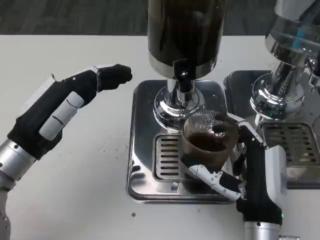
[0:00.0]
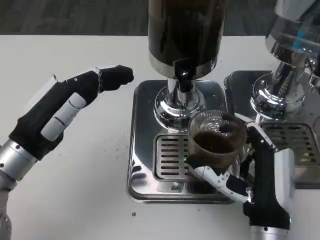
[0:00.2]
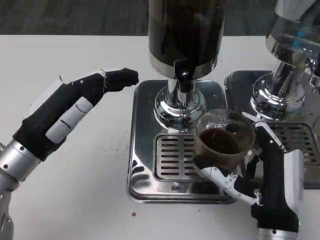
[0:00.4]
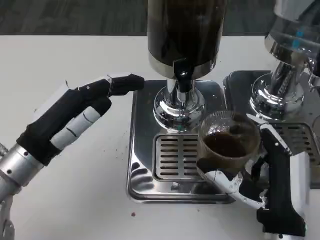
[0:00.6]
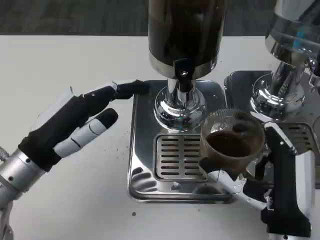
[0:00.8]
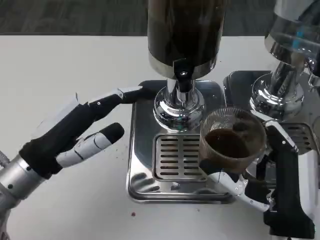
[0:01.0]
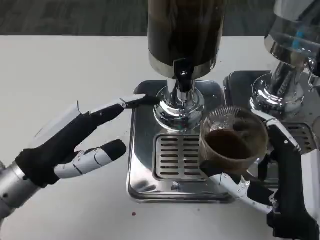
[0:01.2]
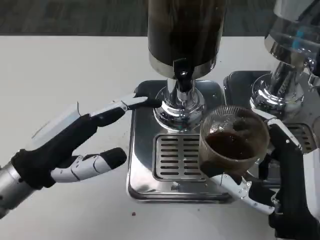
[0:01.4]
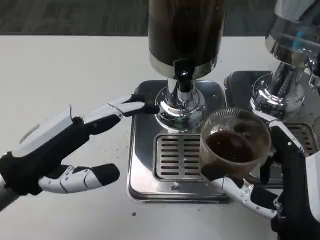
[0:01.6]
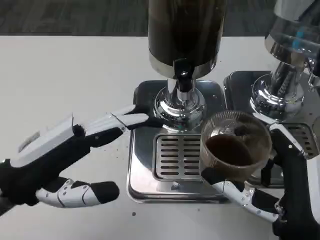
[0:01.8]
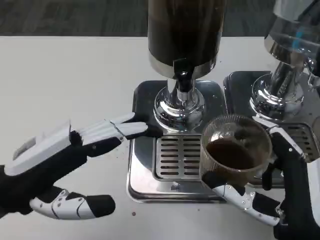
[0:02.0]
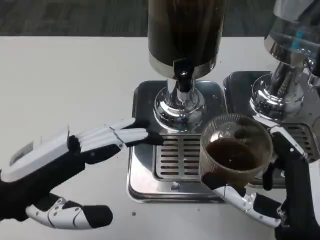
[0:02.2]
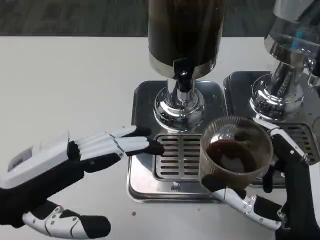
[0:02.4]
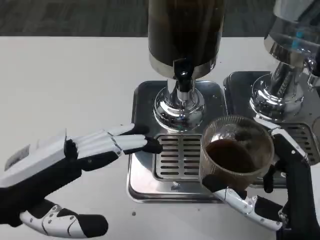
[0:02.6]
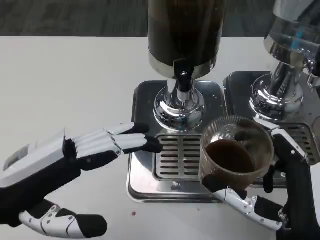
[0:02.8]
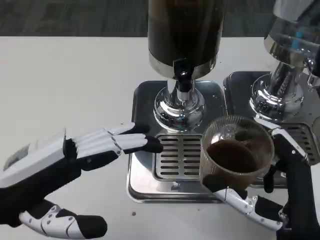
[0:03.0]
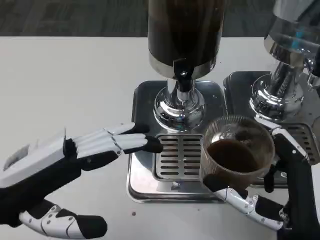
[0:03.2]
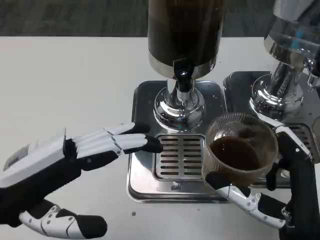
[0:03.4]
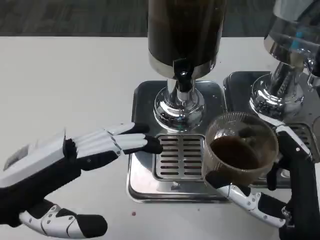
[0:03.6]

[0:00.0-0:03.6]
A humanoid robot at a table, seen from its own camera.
Task of the whole recording: Grasp the cup under the faucet to collect the drink, then remove the cup.
0:00.0 to 0:01.8: The left hand goes some 5 cm backward, while the right hand ends up some 5 cm from where it was.
0:01.8 to 0:03.6: There are only small adjustments of the hands.

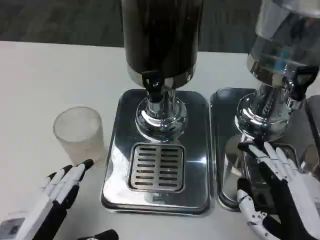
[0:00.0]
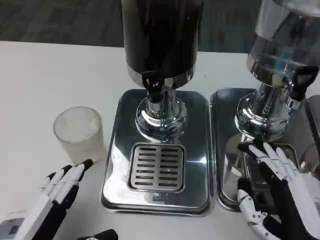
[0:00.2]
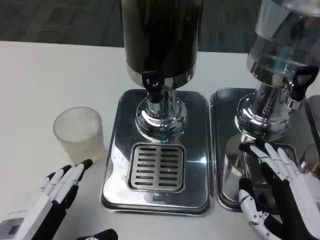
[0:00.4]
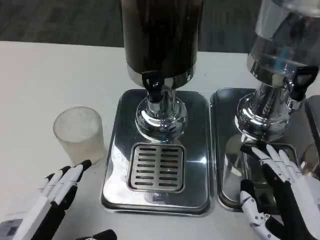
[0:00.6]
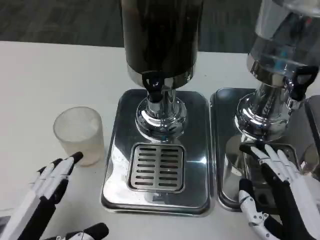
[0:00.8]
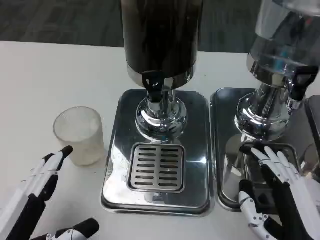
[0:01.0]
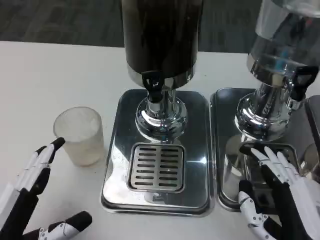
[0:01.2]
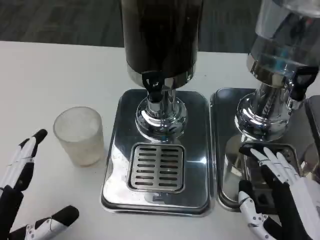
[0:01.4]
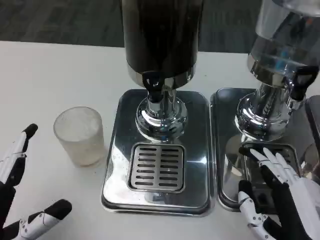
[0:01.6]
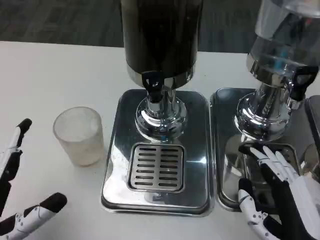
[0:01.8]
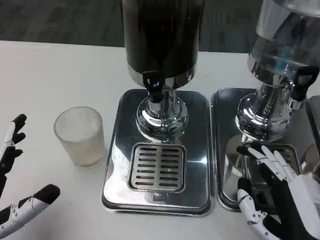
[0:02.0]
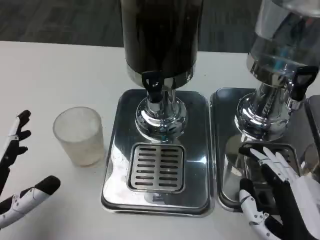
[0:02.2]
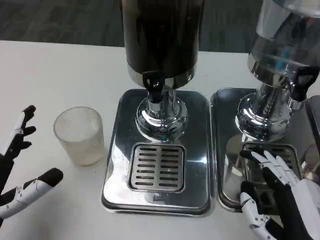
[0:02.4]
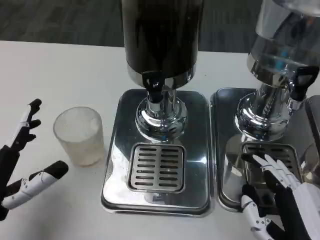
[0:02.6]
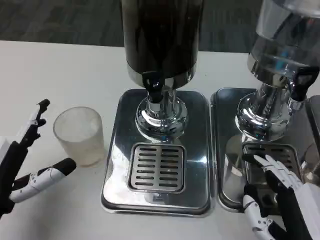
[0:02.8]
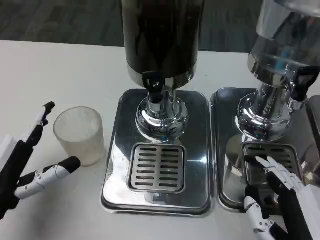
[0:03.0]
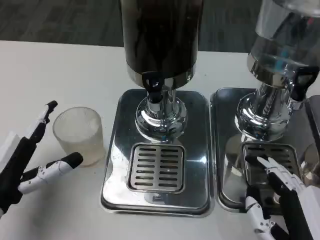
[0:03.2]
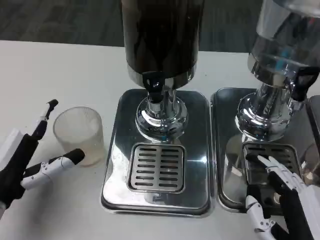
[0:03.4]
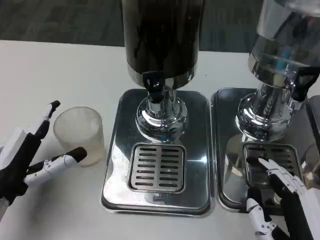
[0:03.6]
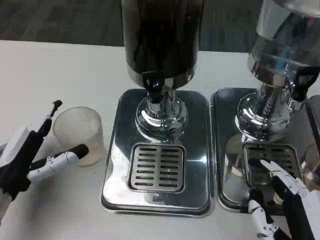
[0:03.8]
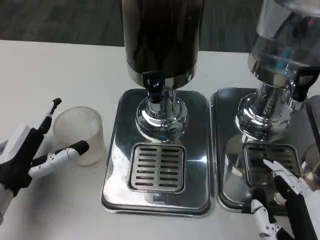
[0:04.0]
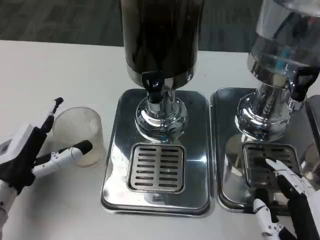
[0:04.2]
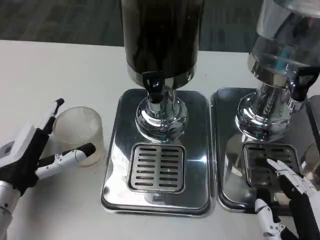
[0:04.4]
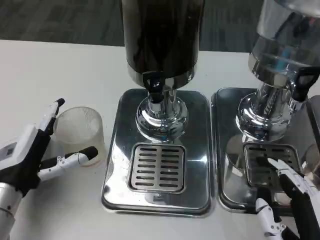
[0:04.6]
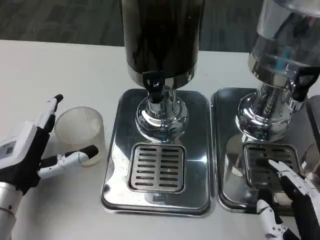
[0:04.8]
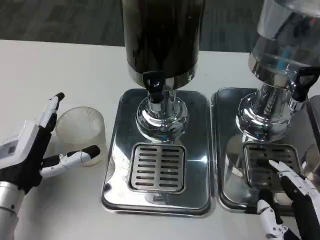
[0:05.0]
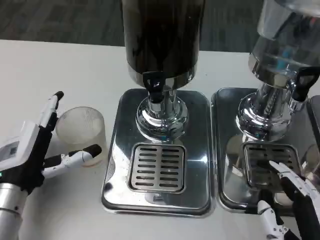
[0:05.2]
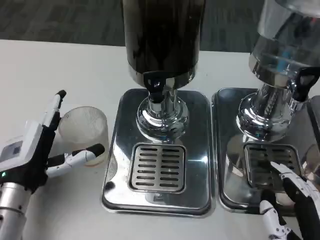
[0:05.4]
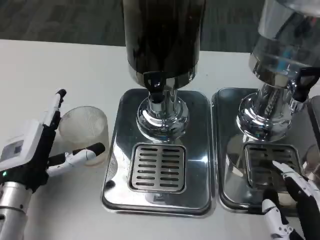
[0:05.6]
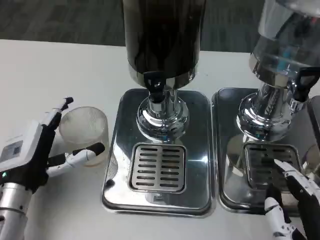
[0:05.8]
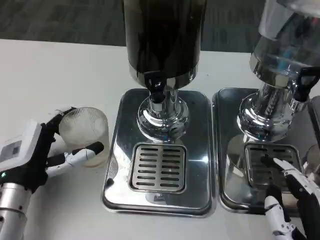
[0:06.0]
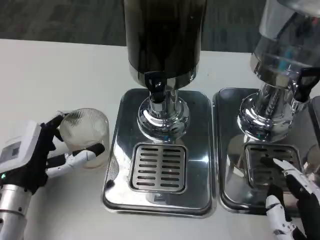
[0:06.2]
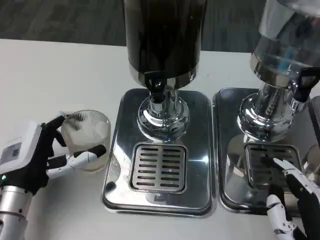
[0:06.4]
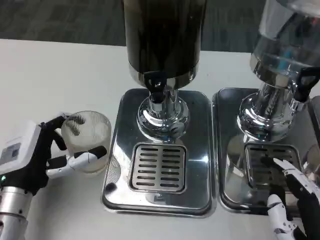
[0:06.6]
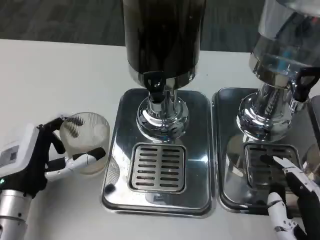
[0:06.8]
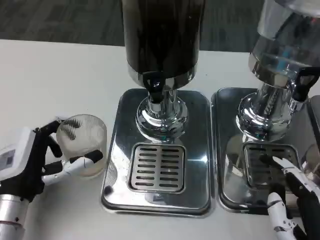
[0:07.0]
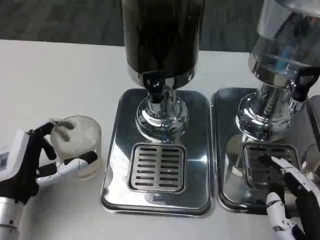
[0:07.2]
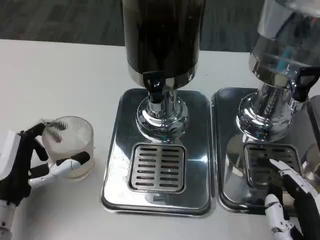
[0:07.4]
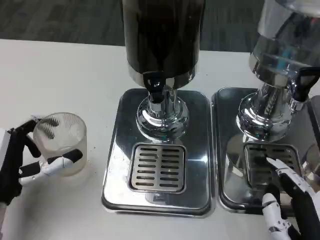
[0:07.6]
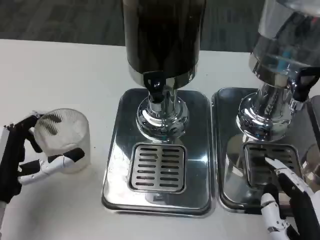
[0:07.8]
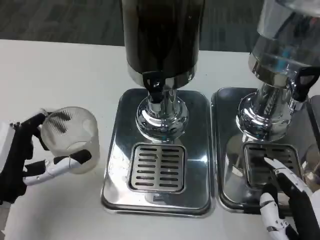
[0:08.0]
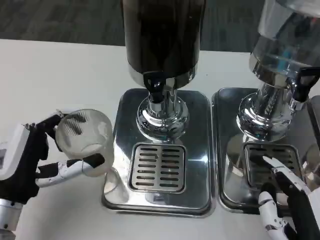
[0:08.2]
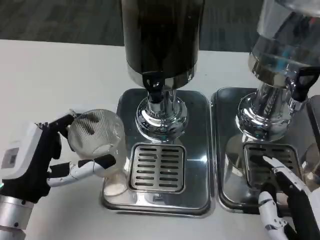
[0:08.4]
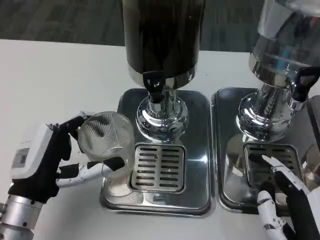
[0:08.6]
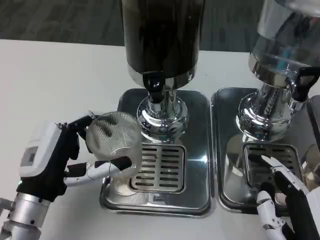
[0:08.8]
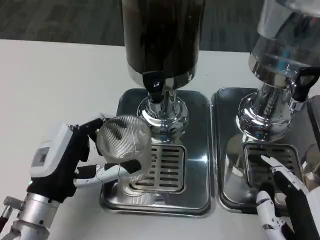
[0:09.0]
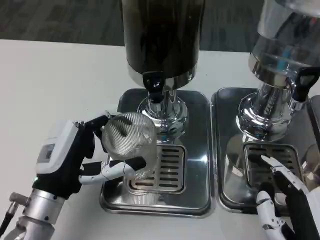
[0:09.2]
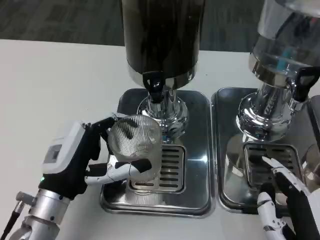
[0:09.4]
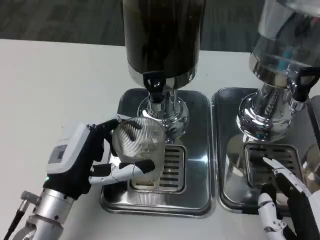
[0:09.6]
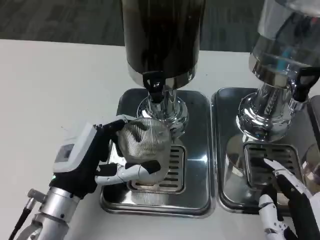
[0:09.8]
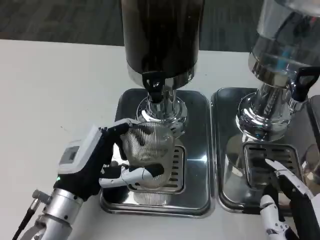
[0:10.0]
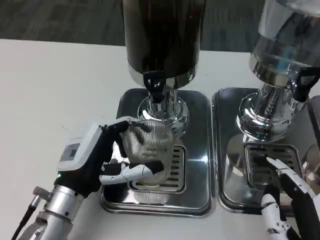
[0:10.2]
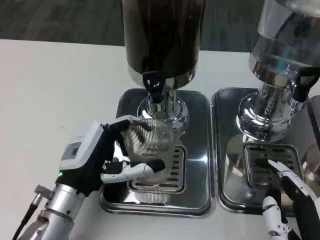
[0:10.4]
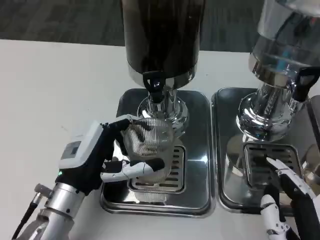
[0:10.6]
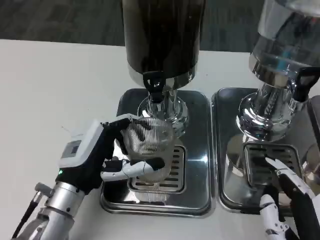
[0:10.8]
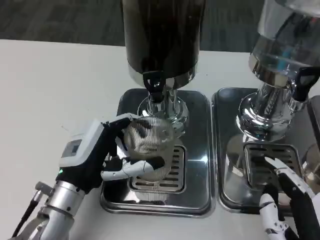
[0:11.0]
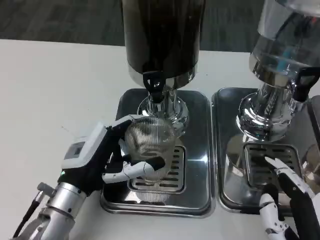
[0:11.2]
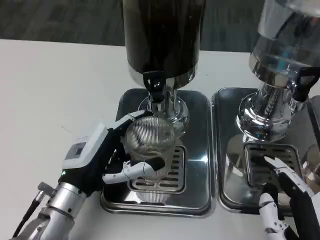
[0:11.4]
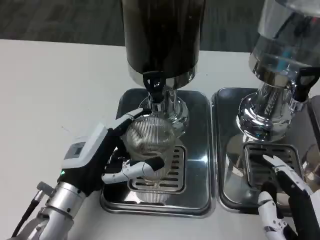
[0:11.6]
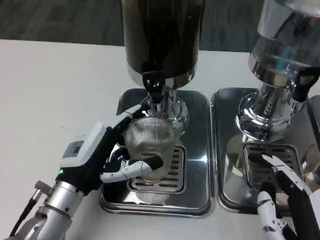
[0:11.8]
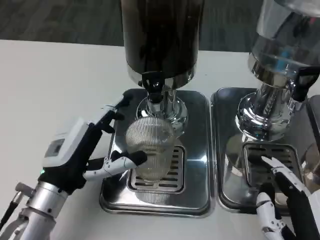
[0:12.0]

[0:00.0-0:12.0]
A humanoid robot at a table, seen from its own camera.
Task of the whole recording: Grasp the cup under the faucet to collect the drink, then remove the cup.
0:01.6 to 0:03.0: The left hand travels forward by some 10 cm.
0:03.0 to 0:04.4: The left hand changes place by roughly 5 cm.
0:04.4 to 0:07.6: The hands move only a little.
0:07.6 to 0:09.0: The left hand goes about 5 cm to the right.
0:09.0 to 0:12.0: There are only small adjustments of the hands.

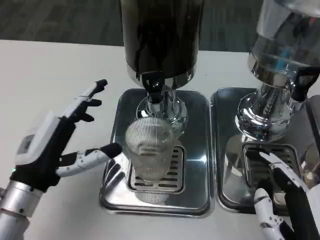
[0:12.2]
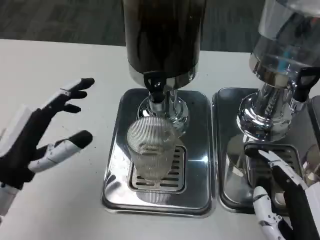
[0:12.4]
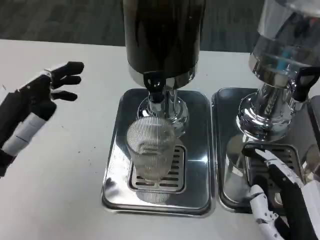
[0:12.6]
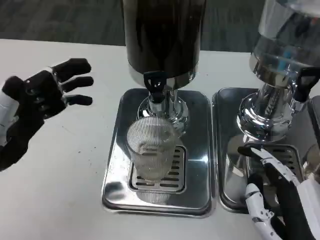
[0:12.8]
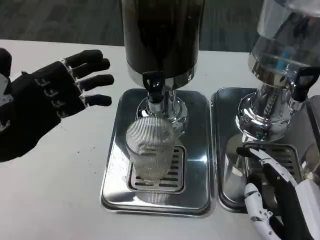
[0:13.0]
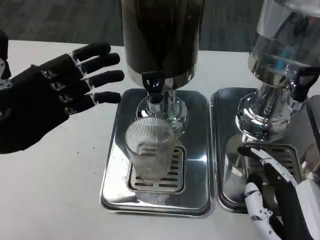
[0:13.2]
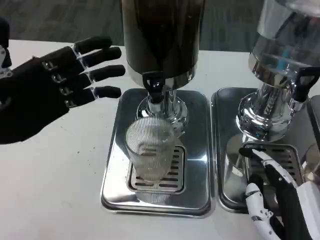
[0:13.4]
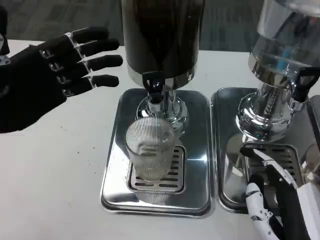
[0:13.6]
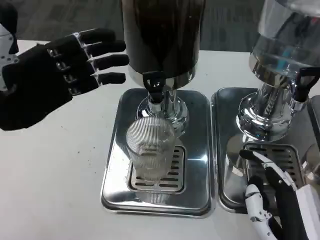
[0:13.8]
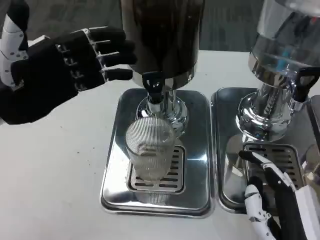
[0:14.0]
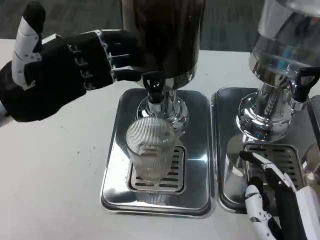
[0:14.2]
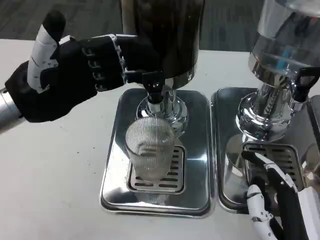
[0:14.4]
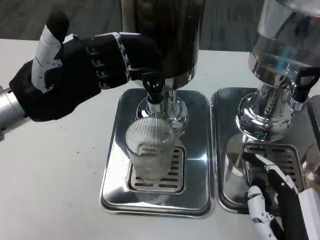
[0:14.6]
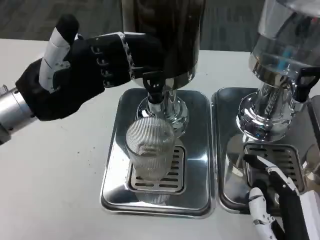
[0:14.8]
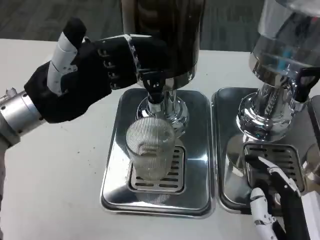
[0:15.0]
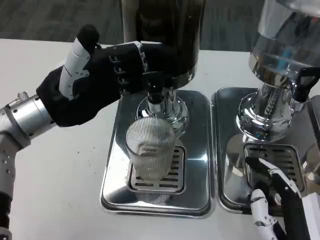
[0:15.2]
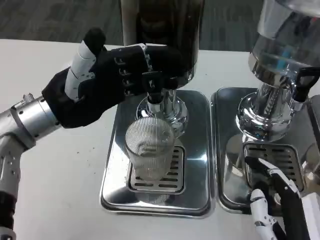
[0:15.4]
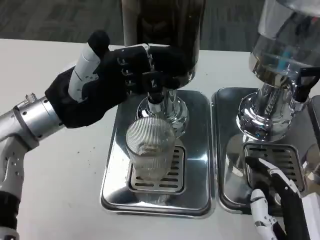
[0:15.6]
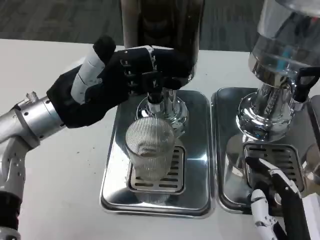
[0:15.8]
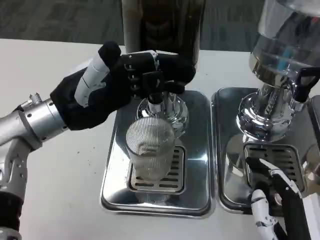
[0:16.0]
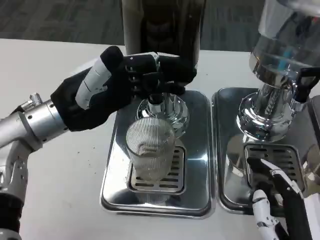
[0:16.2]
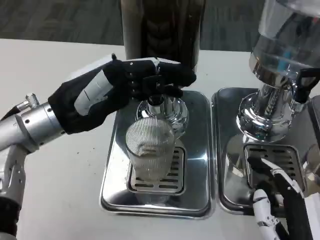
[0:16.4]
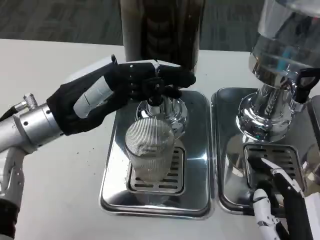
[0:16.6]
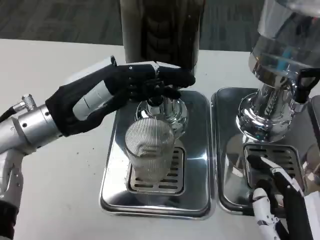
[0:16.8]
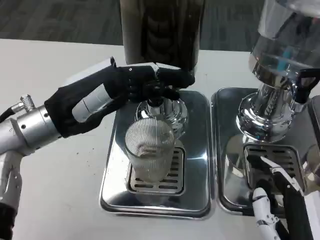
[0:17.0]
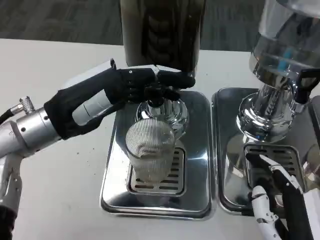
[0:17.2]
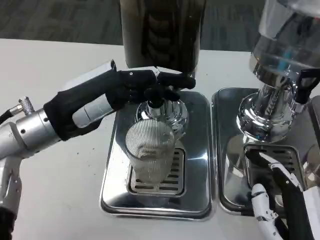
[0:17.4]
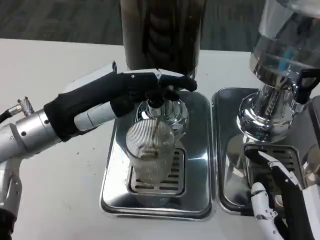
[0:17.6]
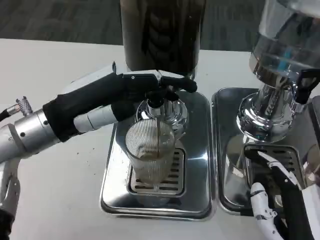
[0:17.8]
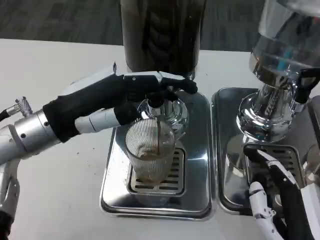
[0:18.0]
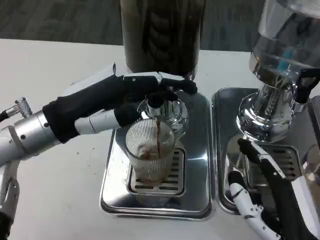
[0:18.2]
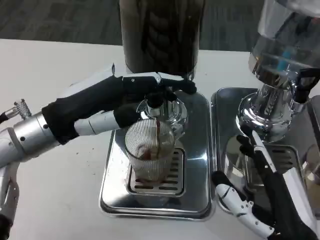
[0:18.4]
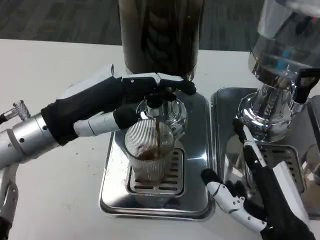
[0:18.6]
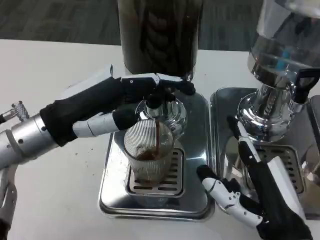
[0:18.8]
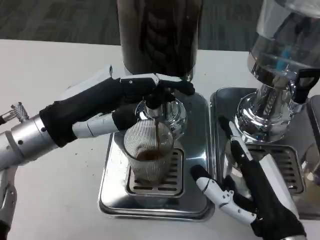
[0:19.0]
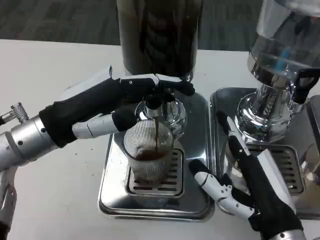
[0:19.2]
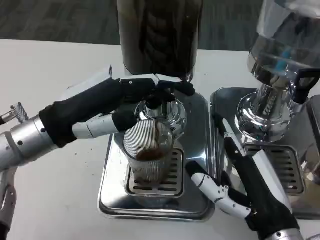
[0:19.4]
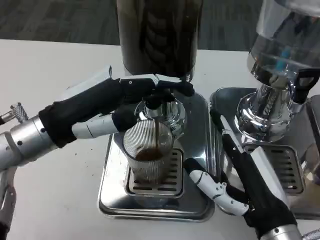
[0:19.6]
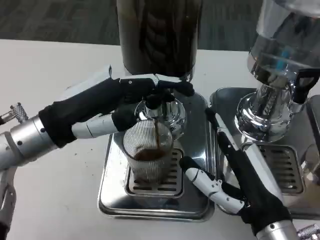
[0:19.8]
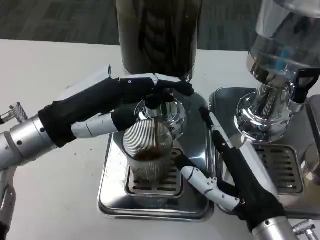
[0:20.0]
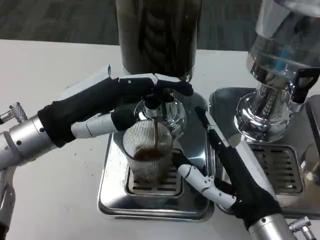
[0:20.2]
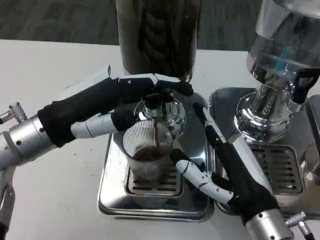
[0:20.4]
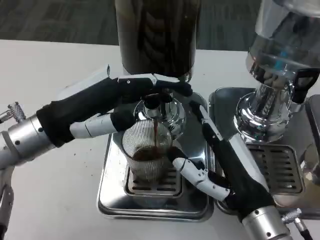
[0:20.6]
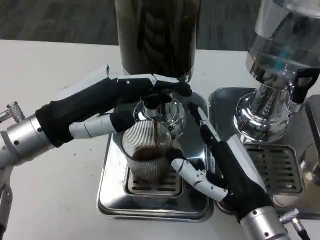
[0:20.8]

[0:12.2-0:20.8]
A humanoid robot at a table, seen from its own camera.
Task of the whole recording: Grasp the cup under the faucet to collect the drink, then remove the cup.
0:12.2 to 0:13.6: The left hand travels upward, forward and to the left by about 15 cm.
0:13.6 to 0:15.0: The left hand moves to the right, approximately 5 cm.
0:16.6 to 0:18.0: The hands stay close to where they were, moving slightly.
0:18.0 to 0:19.4: The right hand shifts roughly 5 cm forward.
0:19.4 to 0:20.8: There are only small adjustments of the hands.
